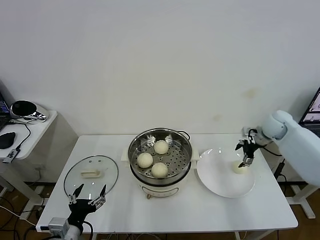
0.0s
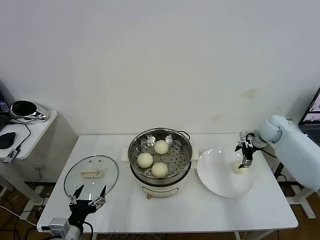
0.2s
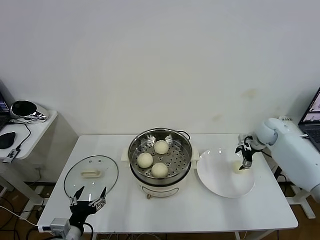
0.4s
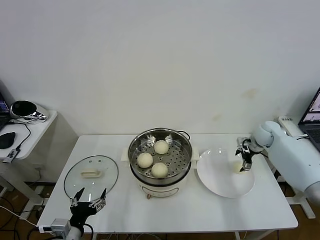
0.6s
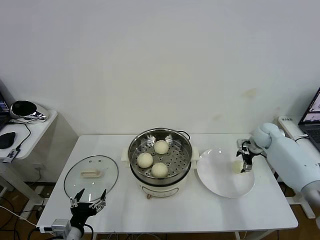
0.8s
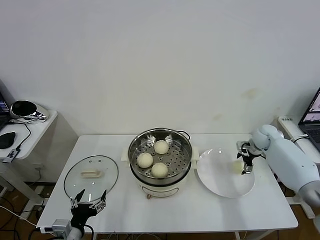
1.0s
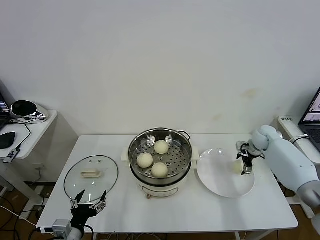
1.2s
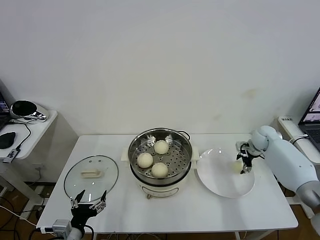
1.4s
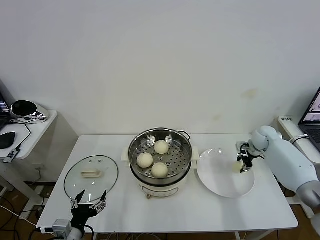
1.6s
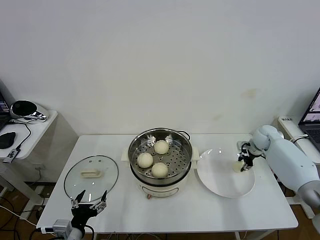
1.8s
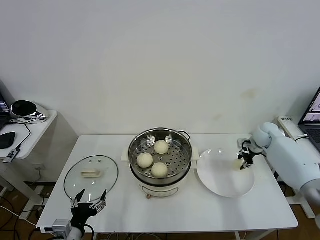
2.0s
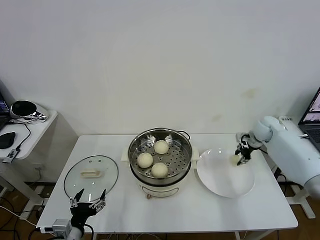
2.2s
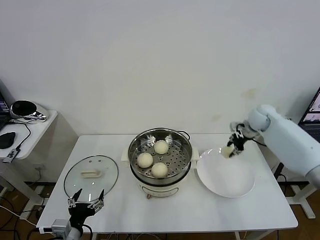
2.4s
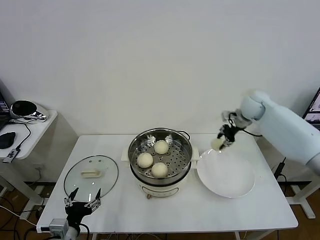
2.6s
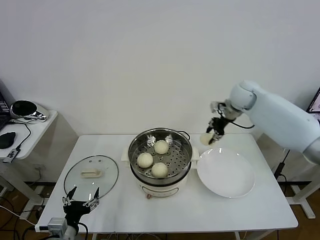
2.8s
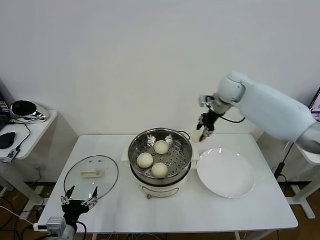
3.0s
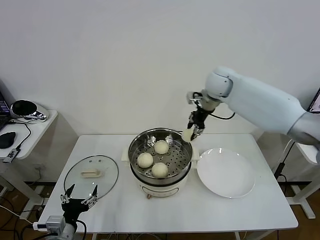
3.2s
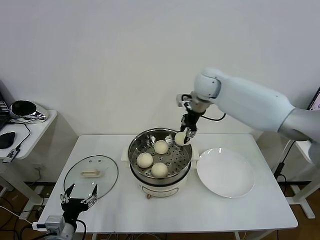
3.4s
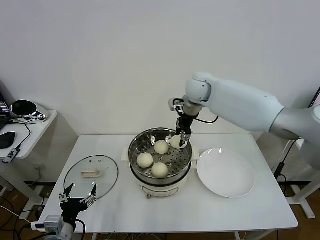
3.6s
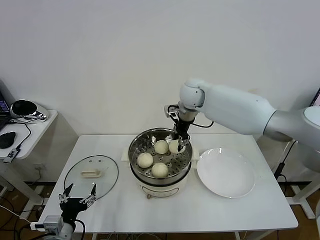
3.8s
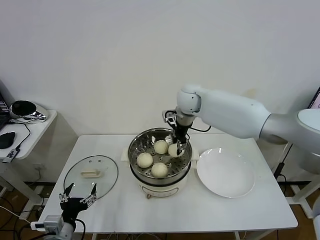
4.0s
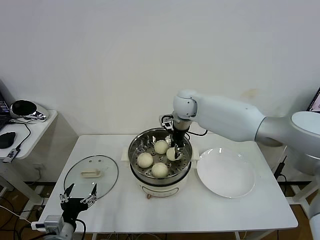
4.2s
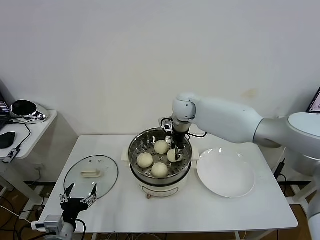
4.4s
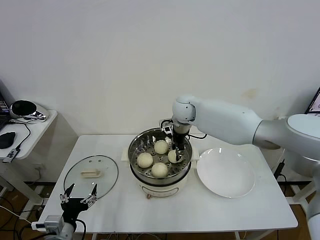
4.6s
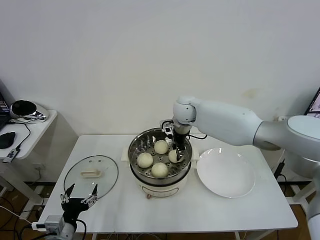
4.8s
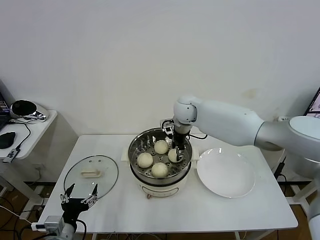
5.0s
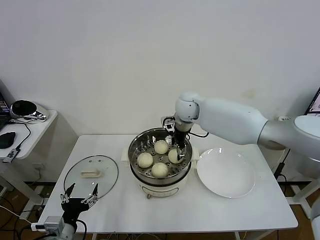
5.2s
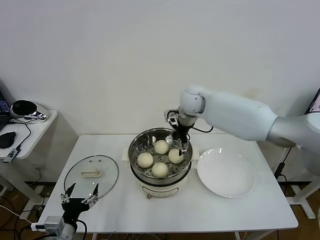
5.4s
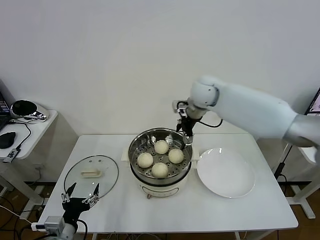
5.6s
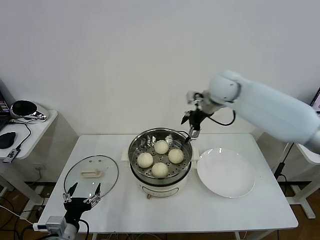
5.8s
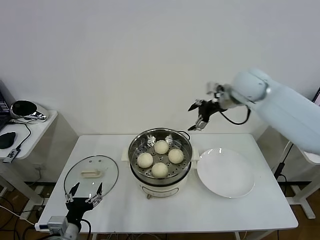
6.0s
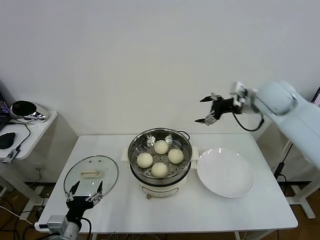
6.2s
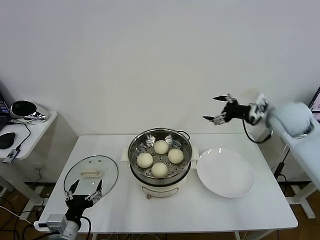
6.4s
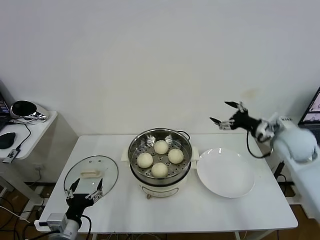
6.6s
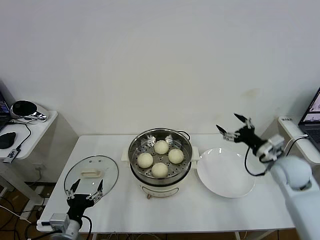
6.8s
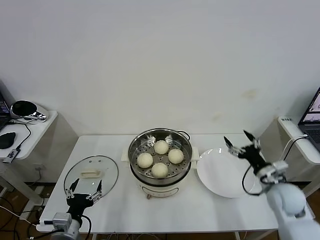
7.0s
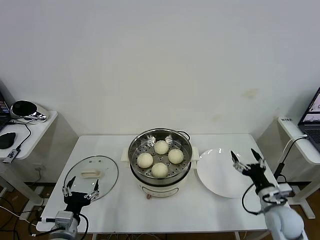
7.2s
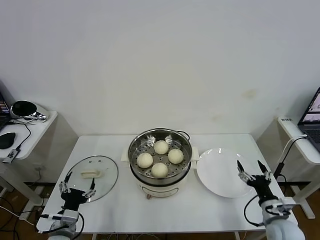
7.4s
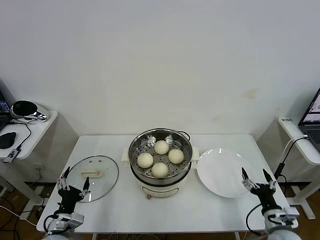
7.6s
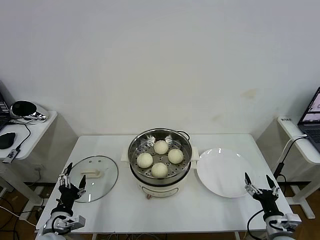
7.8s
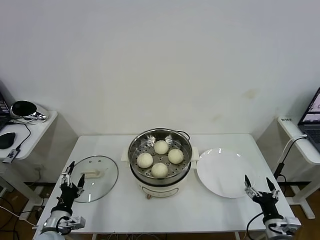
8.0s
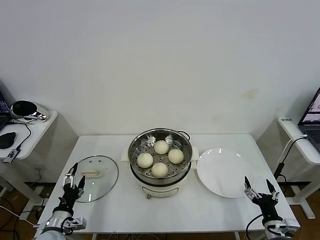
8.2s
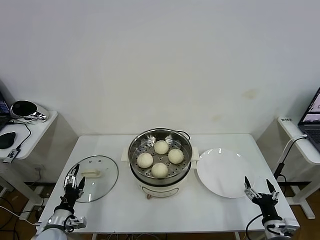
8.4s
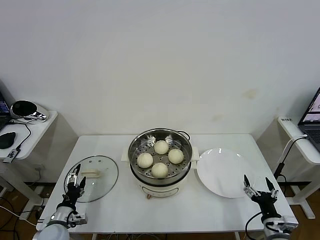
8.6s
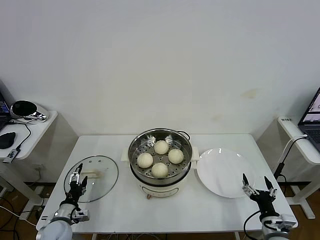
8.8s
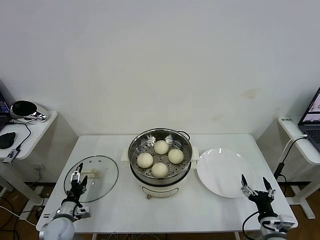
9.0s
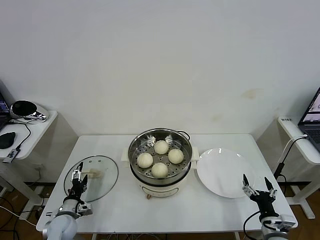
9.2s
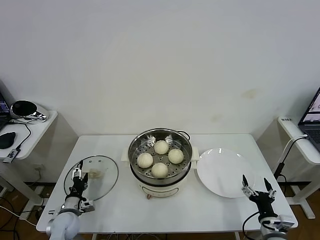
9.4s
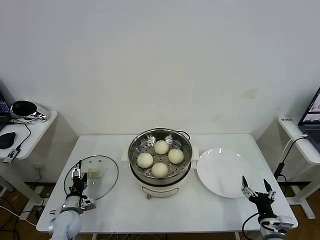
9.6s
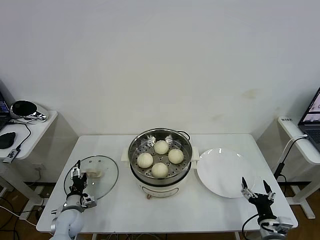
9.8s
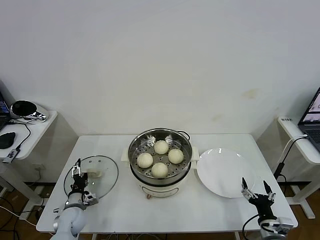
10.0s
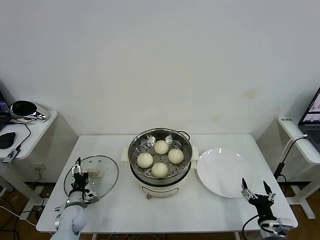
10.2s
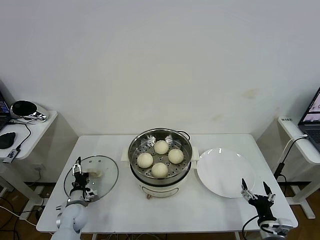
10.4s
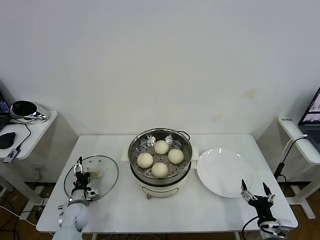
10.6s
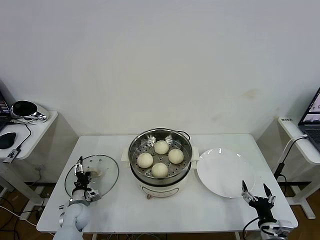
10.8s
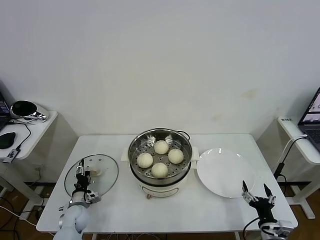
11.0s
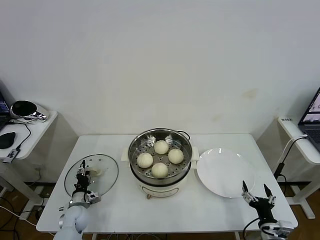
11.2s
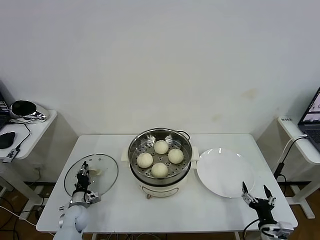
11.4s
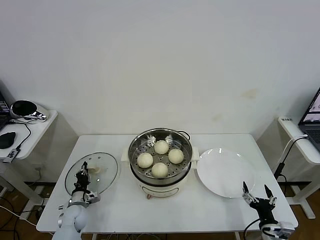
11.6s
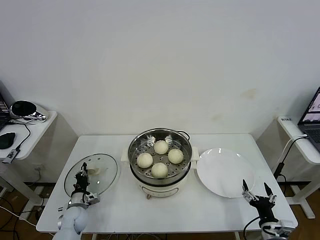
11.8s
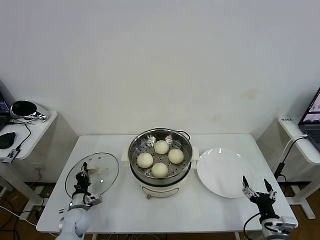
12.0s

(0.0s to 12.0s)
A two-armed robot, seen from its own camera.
Task of the whole recording: take steamed baozi put them in steamer then cover it.
Step, 1.8s - 5.4s: Place the baozi on the steamer with right gripper.
Step, 5.6s - 11.8s: Grasp the pot lid with left gripper.
0.0s - 1.6s: The right gripper shifts roughly 10 cm downward, and closes up.
1.6s - 3.0s: The right gripper goes some 30 cm upward and to the left.
3.0s - 4.4s: The right gripper shifts approximately 15 cm to the left and downward.
4.4s - 6.0s: The right gripper shifts some 20 cm to the right and upward, and opens its fingers.
6.0s - 7.6s: The right gripper travels downward and backward by some 50 cm. The left gripper ends up roughly 5 cm from where it was.
7.6s - 9.0s: The left gripper shifts some 15 cm downward, forward and to the left.
9.0s - 10.4s: The left gripper travels forward by roughly 5 cm.
10.4s - 12.0s: The left gripper closes its fingers.

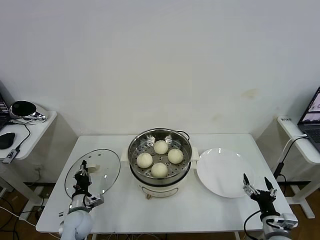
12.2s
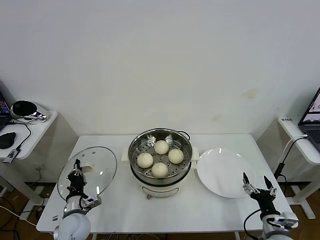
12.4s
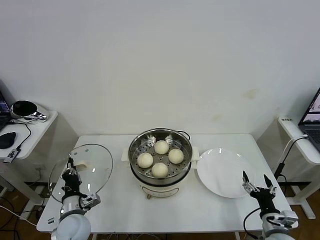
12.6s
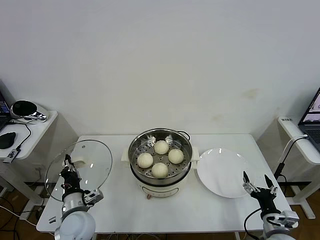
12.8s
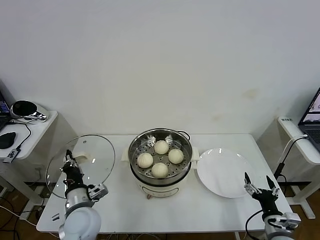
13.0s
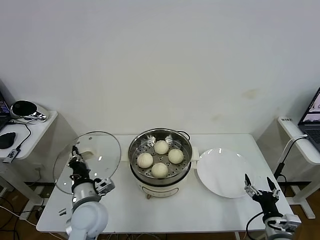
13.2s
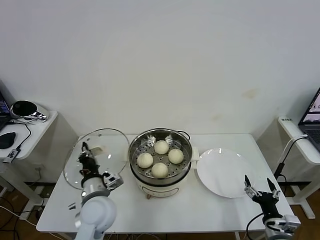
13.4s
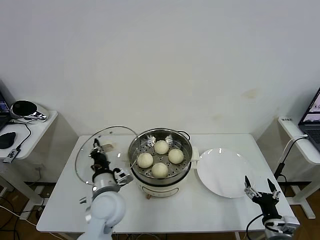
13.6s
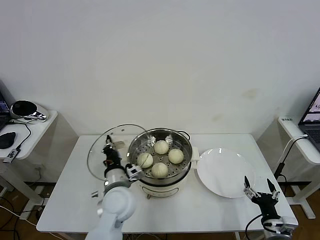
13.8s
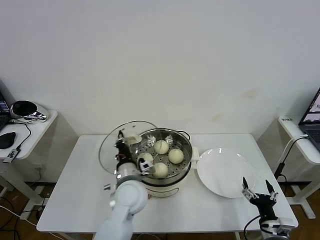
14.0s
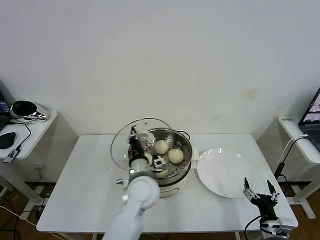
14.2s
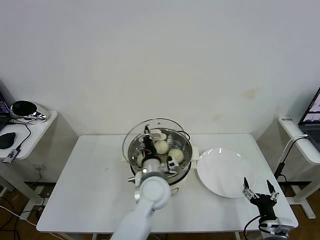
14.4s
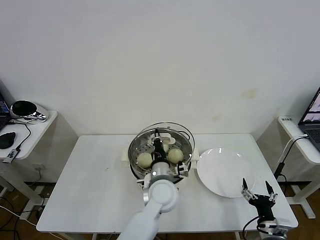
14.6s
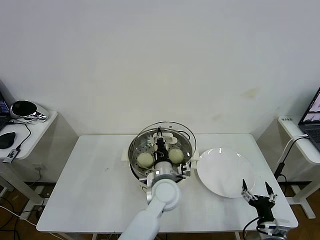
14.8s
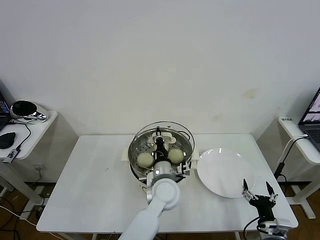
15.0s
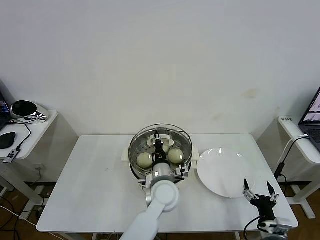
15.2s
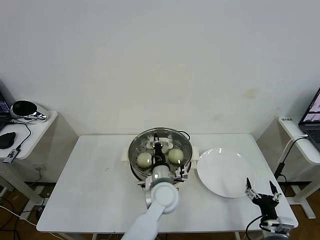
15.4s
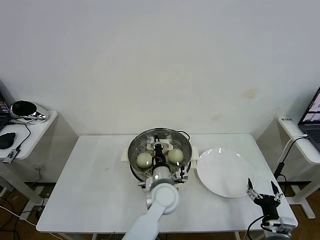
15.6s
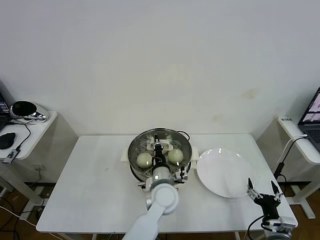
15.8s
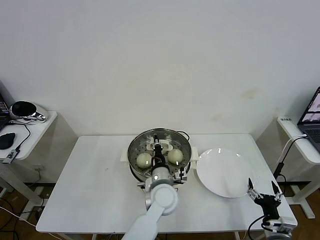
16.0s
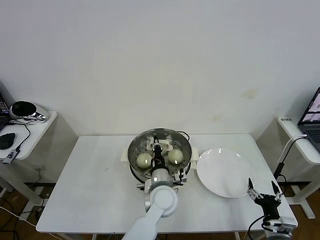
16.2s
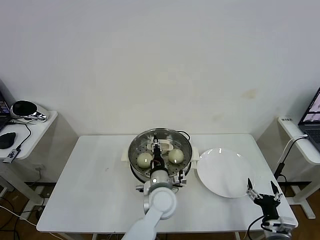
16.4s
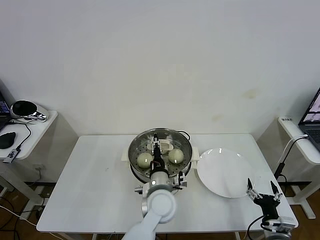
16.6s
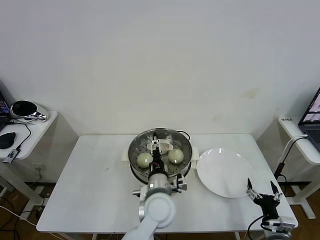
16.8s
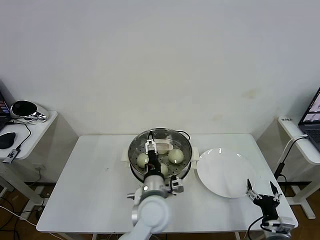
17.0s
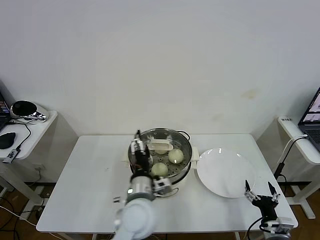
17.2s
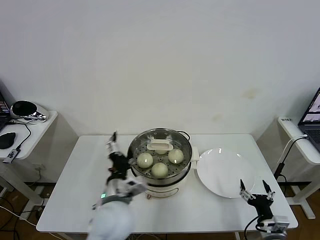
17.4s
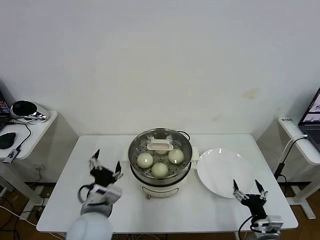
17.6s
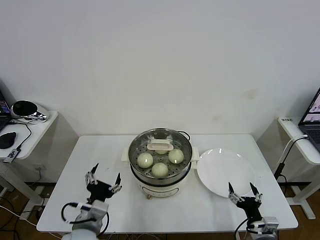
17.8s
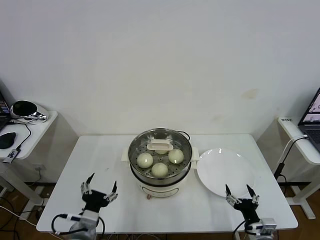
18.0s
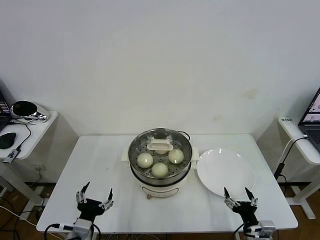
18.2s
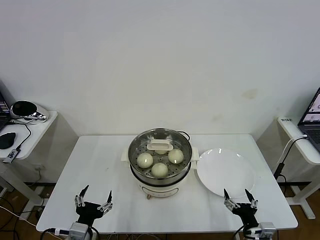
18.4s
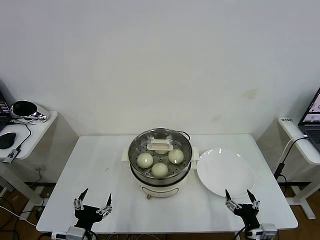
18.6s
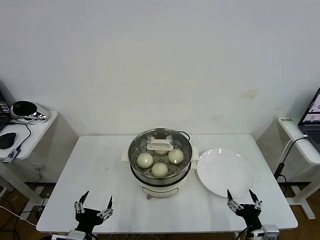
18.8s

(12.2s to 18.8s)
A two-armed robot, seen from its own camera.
Task of the whole recording: take steamed baozi put them in steamer then cover it.
Step, 12.2s - 17.0s: Place the pot lid on the steamer with left gripper.
12.2s - 13.8s: The left gripper heads upward and to the right, covering about 25 cm.
13.8s - 15.4s: The left gripper goes about 15 cm to the right.
15.4s - 17.2s: The left gripper moves backward, some 5 cm, and opens its fingers.
17.2s - 18.8s: The left gripper goes some 25 cm to the left and backward; the right gripper travels to the left by approximately 5 cm.

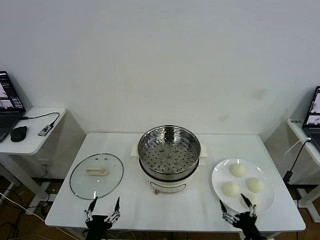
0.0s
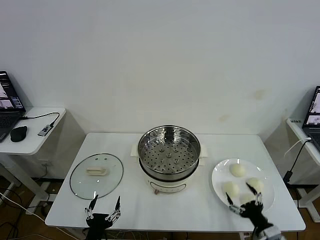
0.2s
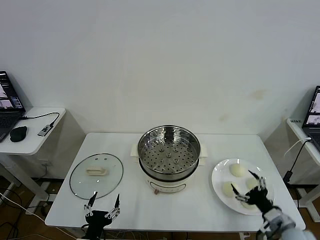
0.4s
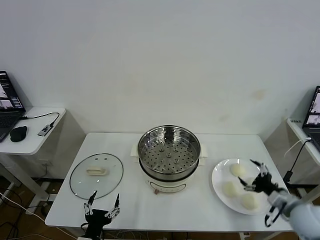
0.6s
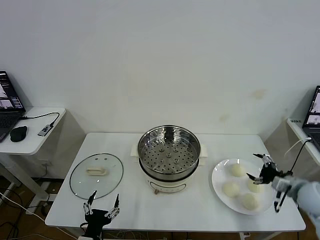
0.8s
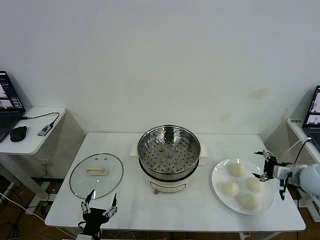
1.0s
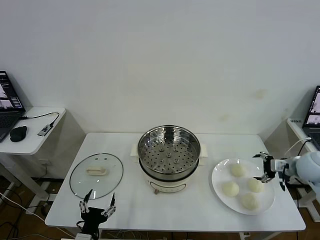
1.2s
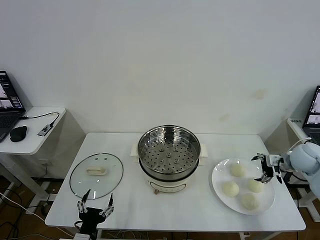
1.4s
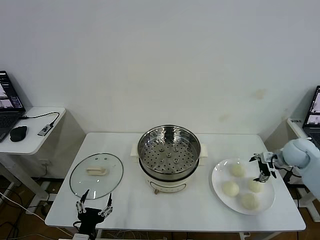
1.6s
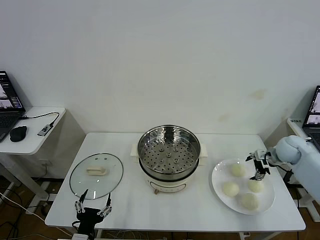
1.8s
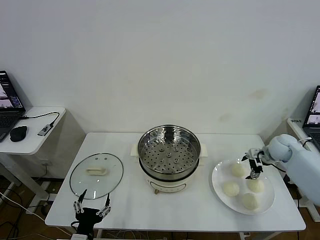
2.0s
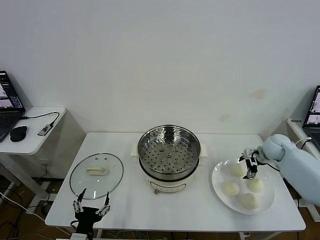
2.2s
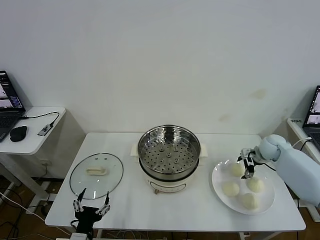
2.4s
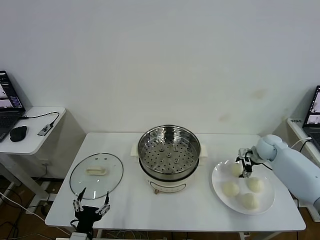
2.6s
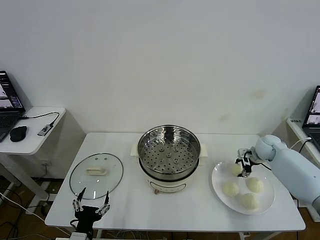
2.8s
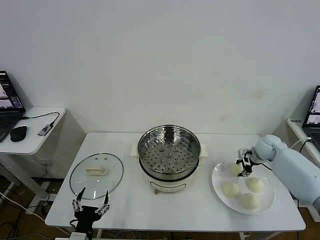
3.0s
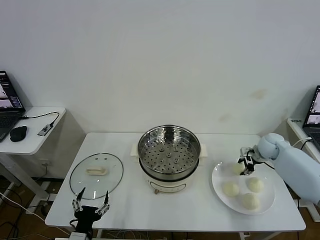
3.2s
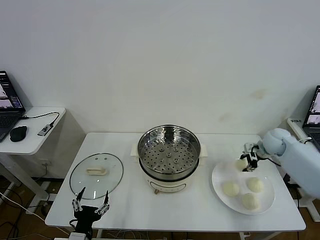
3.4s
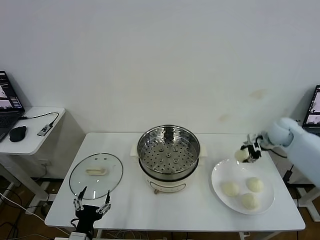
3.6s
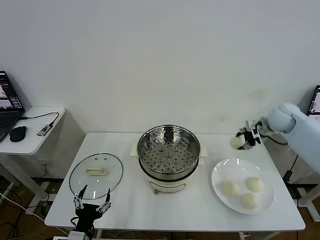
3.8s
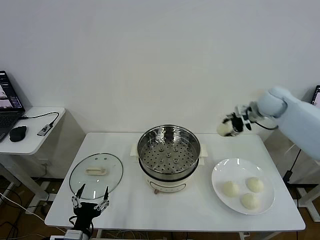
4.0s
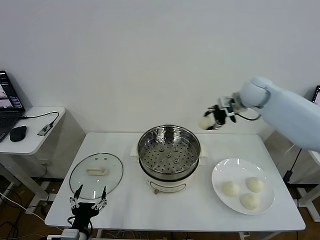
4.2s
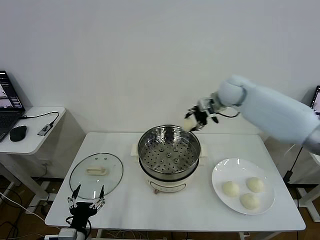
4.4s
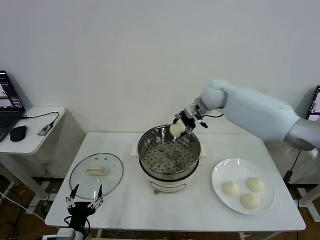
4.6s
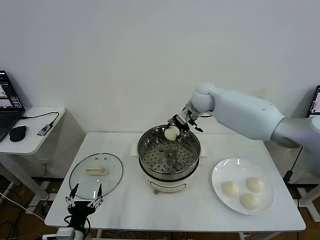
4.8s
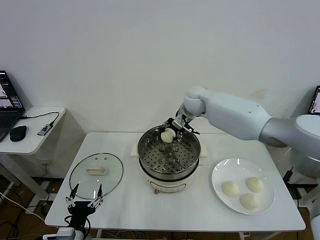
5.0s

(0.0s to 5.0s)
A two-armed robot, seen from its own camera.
Task of the whole recording: take steamed baozi put them in steamer then cover it.
Step, 0.0s - 2.8s: Grasp the baozi in the plate with right gripper.
1.6s - 3.4s: The right gripper moves some 5 cm, and closes its fingers.
3.4s - 5.0s: The right gripper shifts about 30 cm to the left.
